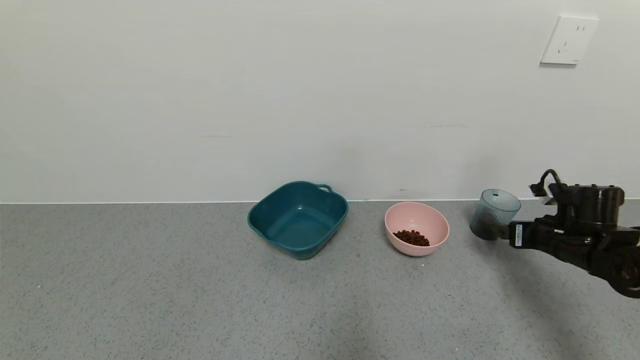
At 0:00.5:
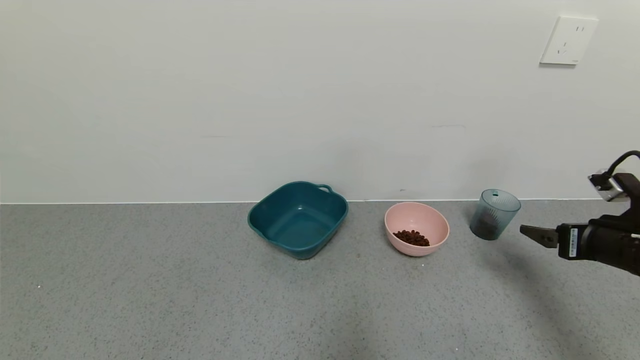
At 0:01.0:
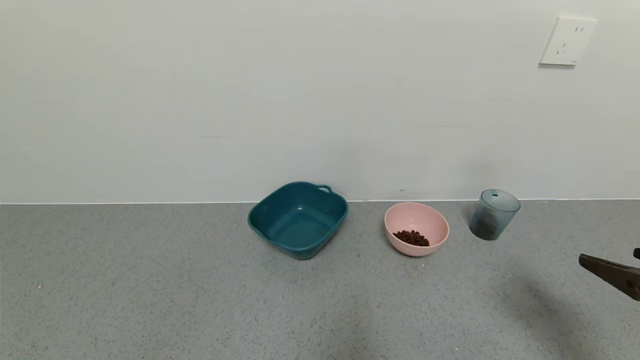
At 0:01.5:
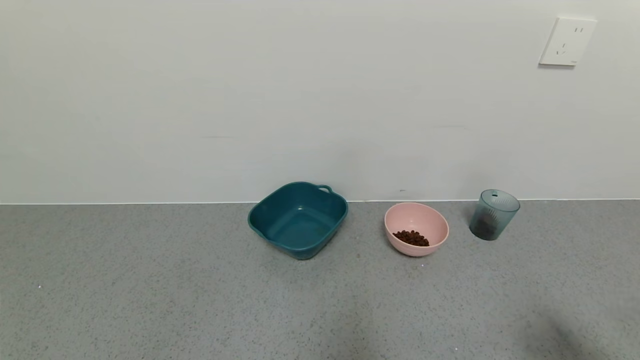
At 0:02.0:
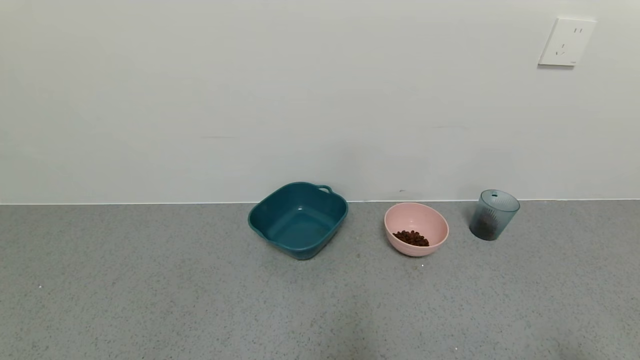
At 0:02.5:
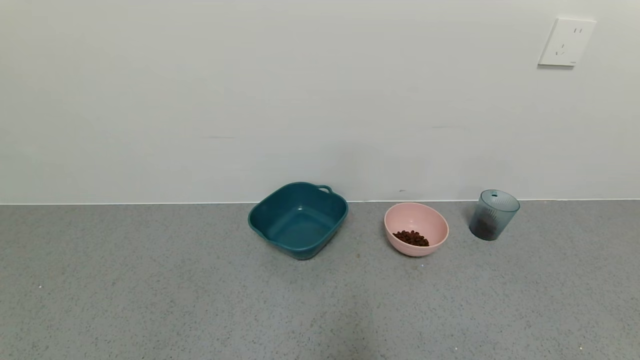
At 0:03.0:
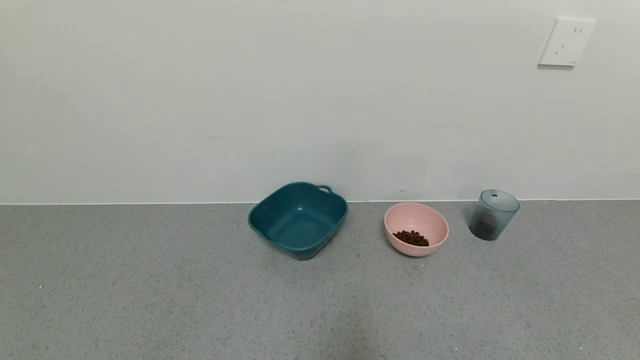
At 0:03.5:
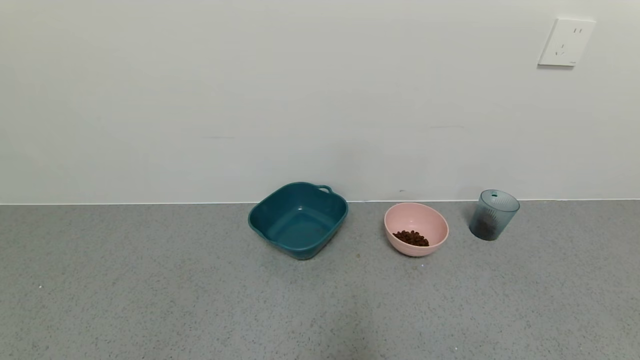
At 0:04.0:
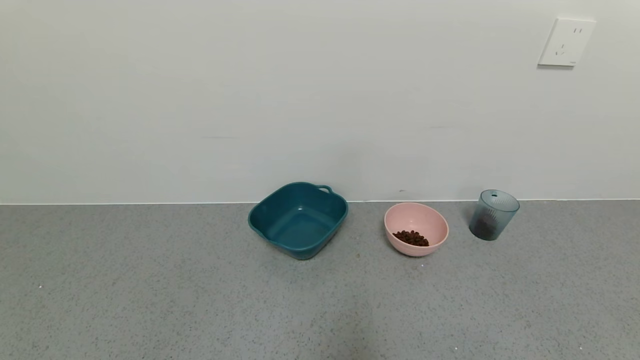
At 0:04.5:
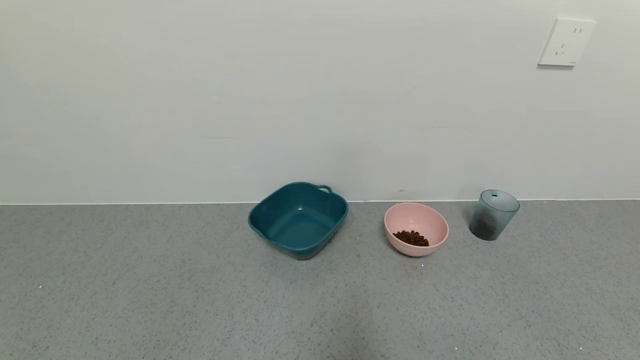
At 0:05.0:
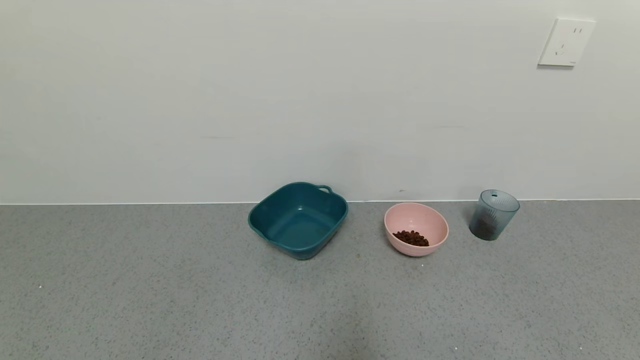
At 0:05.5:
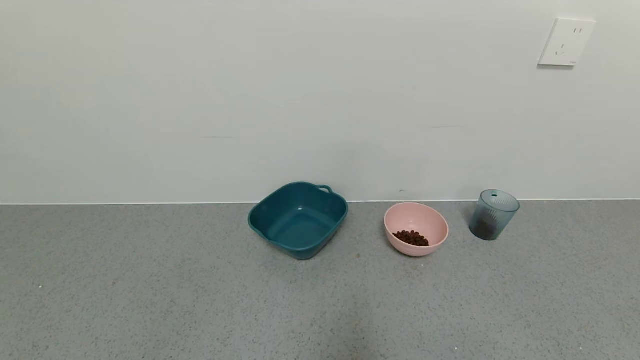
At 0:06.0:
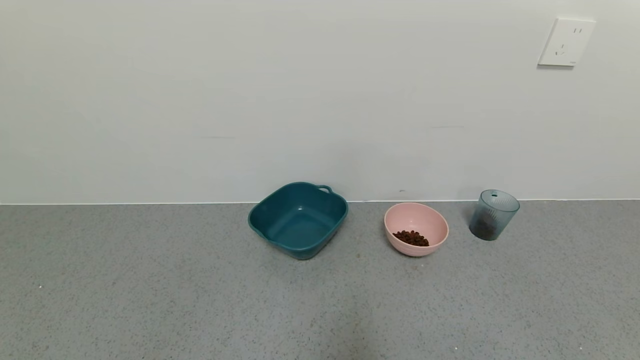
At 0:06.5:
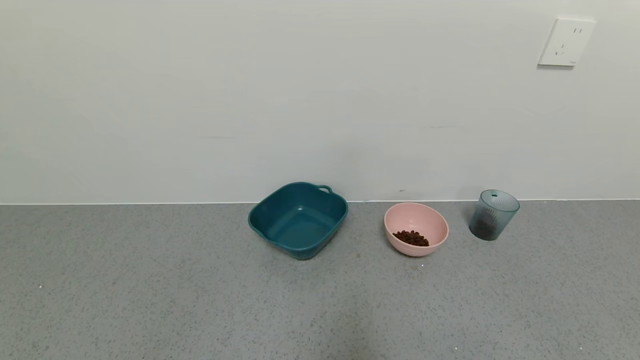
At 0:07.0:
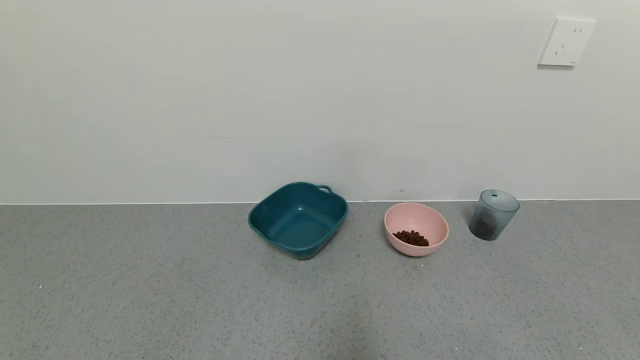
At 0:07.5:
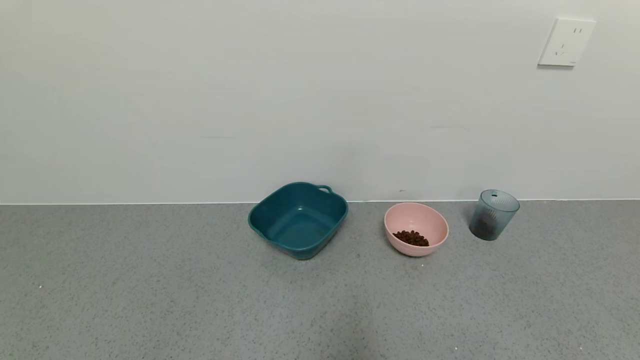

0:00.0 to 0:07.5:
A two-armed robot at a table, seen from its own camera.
Task of the whole recording: use a gripper to pick up the cup and pour the solid into a bowl or tray.
0:00.0 to 0:02.0: The right gripper moves backward, about 35 cm.
0:05.5 to 0:07.5: Neither gripper changes place.
